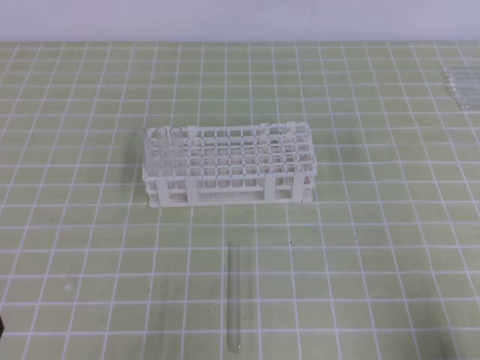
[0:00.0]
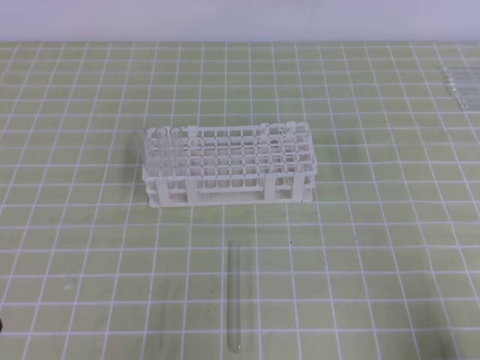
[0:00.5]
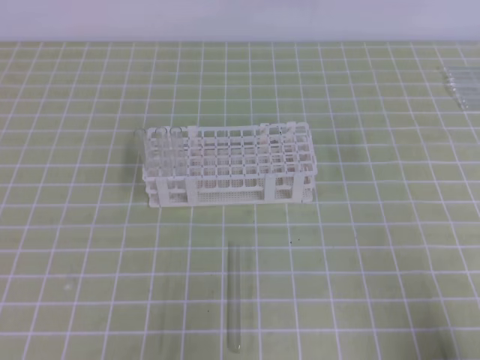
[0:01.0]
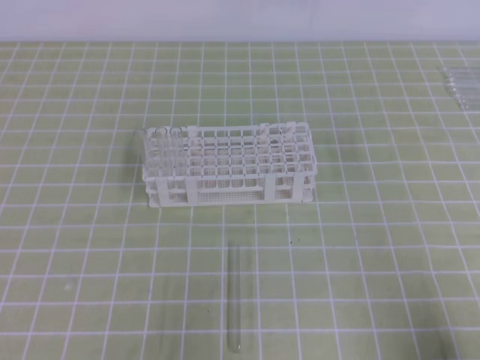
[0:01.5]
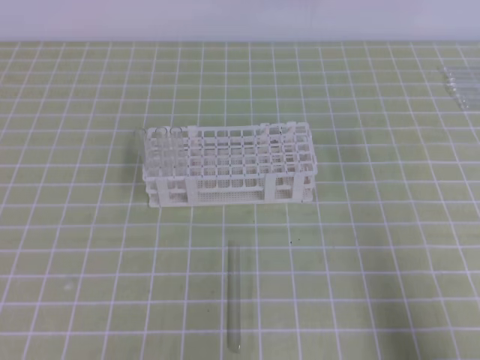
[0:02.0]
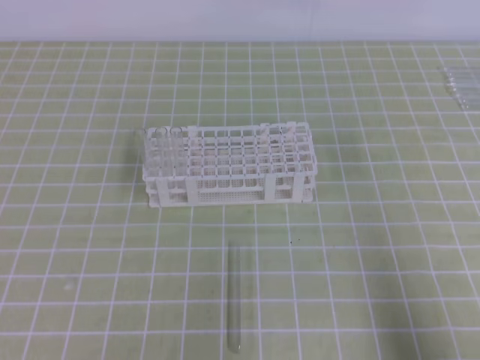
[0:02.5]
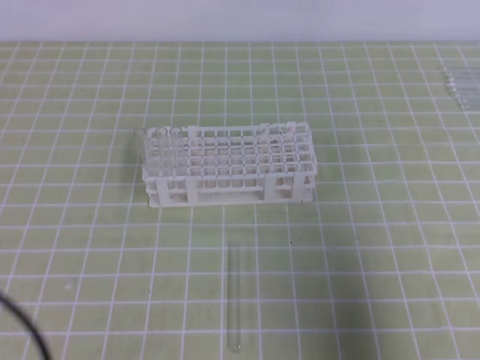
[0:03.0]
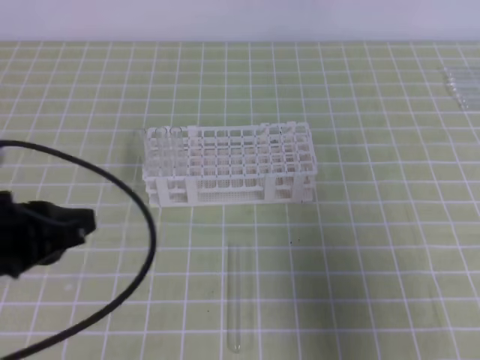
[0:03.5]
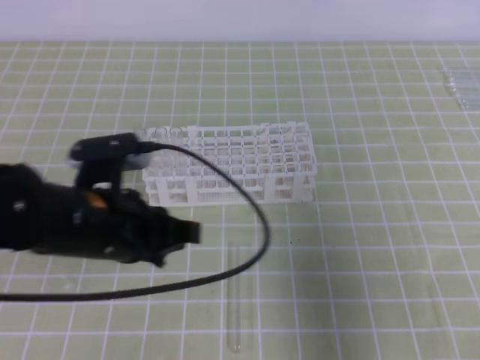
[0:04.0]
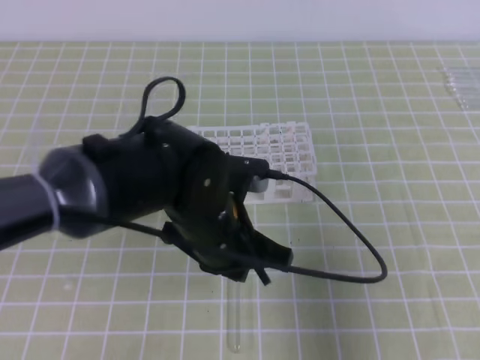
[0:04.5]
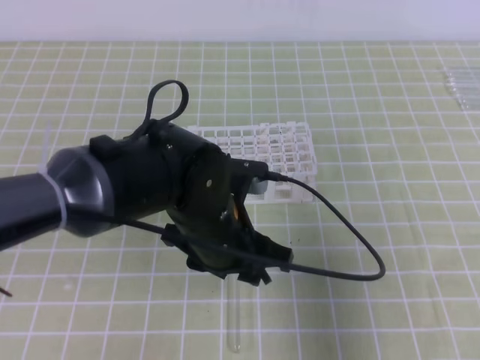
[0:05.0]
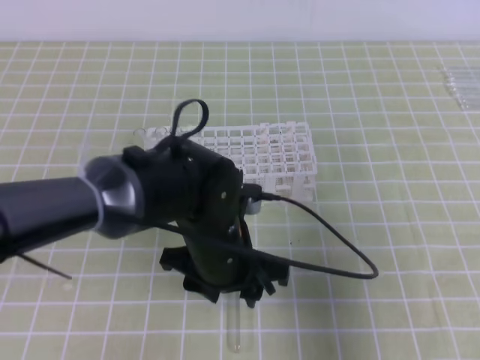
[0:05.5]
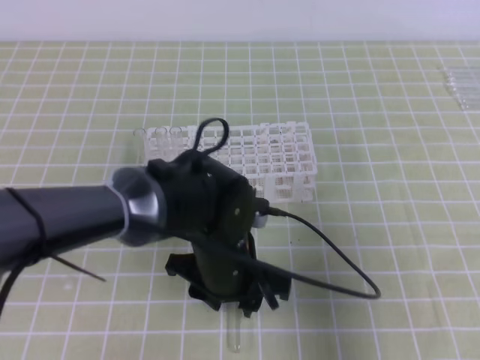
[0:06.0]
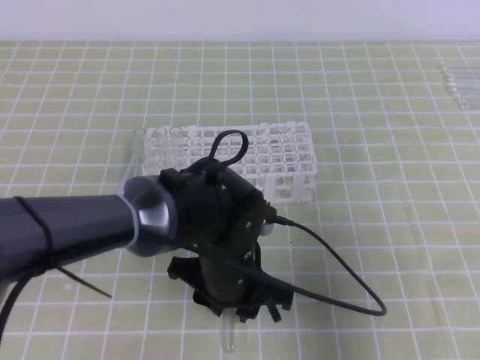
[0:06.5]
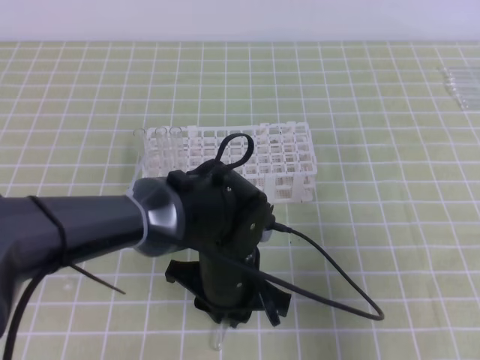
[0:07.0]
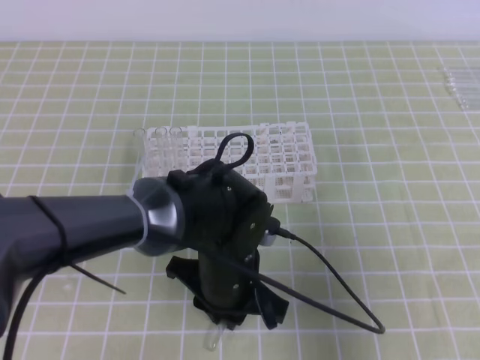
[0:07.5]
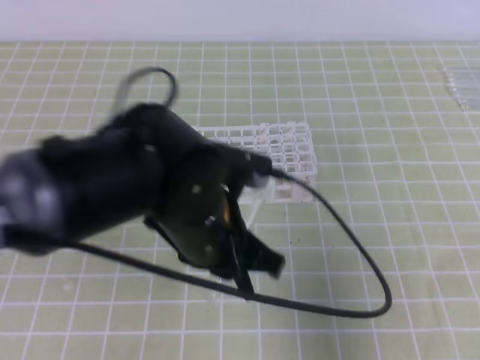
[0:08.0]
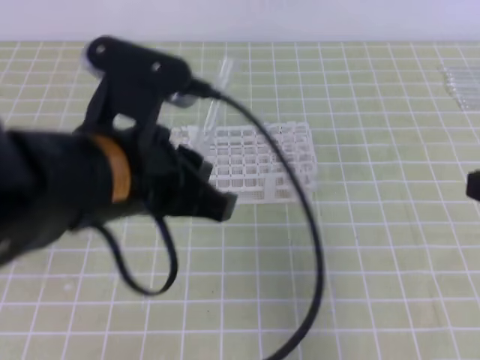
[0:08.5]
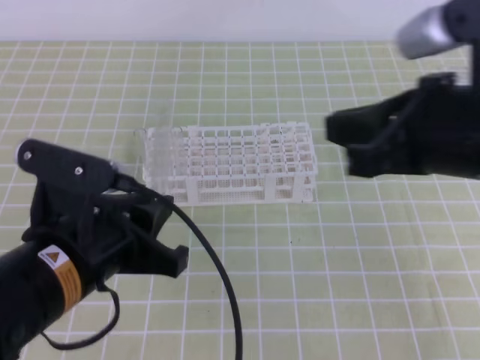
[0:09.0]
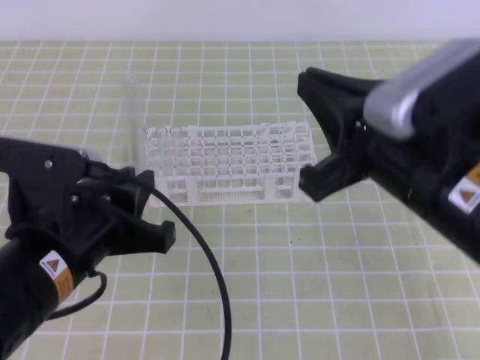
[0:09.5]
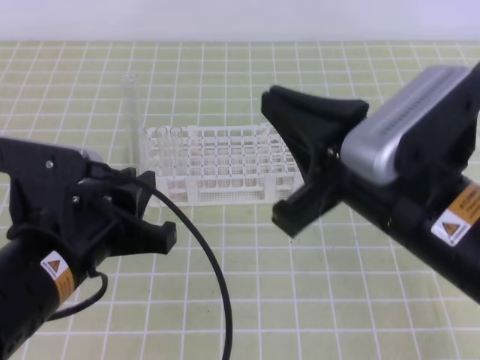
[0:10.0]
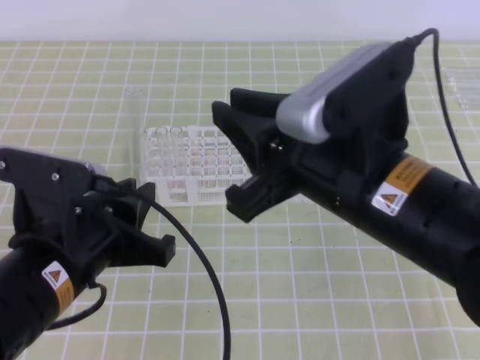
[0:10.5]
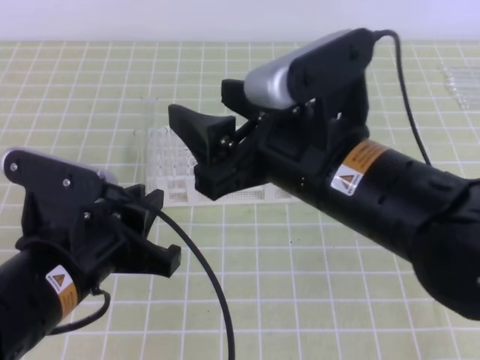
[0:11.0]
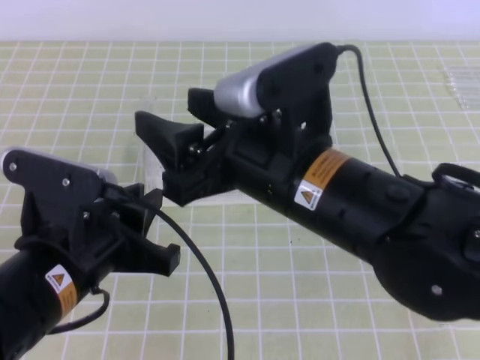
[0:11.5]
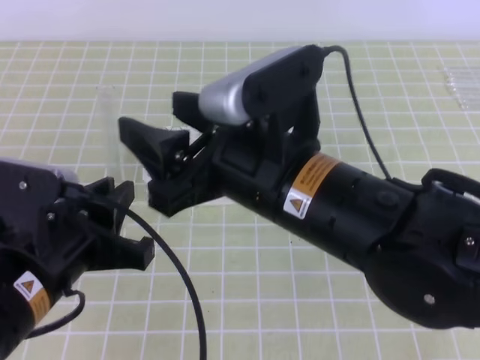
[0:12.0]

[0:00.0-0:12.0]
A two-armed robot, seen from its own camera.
Step, 0.0 to 4.5 s: Pick up the test tube with the left gripper.
Step, 5.0 to 10.5 s: Pass the test tube from the left gripper to the right gripper.
2.0 to 4.0 s: The left gripper shifts some 20 cm forward and to the right, while the right gripper goes approximately 10 cm upward and forward.
4.0 to 6.0 s: The left gripper goes approximately 15 cm to the right and downward, and opens.
6.0 to 8.0 s: The left gripper is displaced upward by some 10 cm, and closes up.
8.0 to 10.0 s: The right gripper goes approximately 15 cm to the left; the left gripper goes about 10 cm to the left and backward.
10.0 to 12.0 s: The right gripper is displaced to the left by some 10 cm, and opens up.

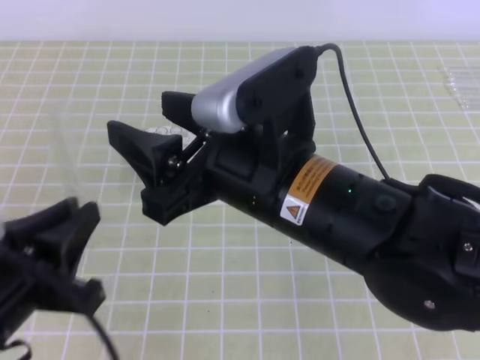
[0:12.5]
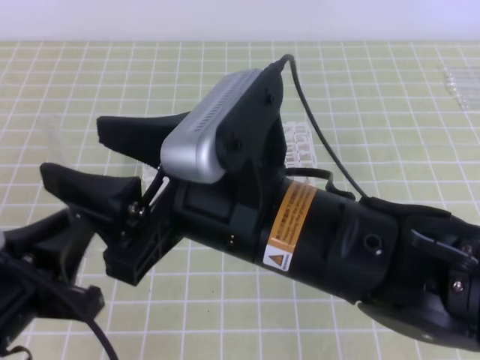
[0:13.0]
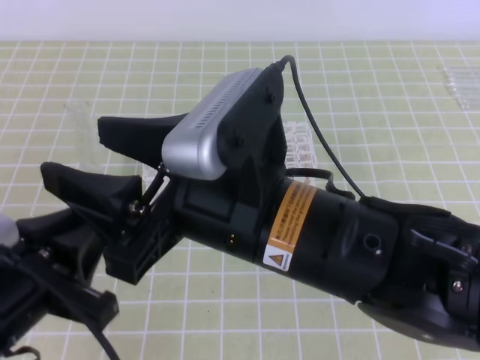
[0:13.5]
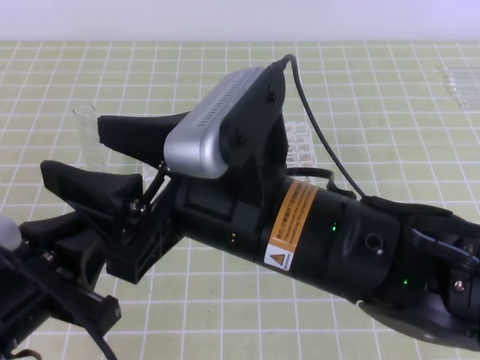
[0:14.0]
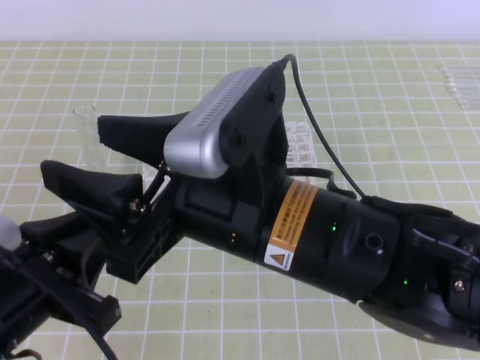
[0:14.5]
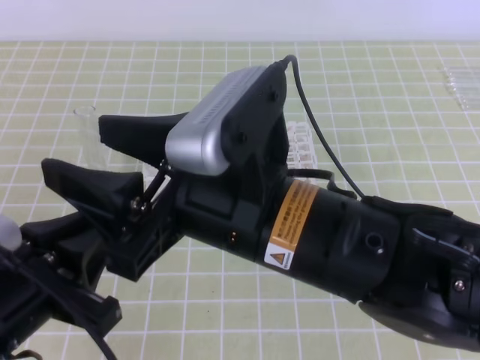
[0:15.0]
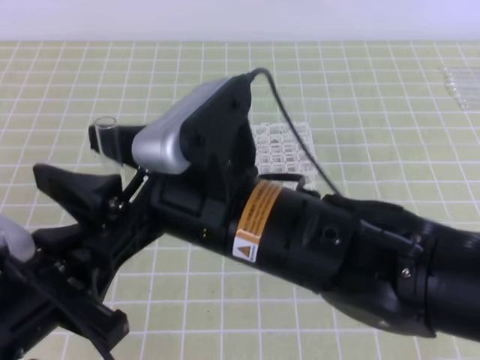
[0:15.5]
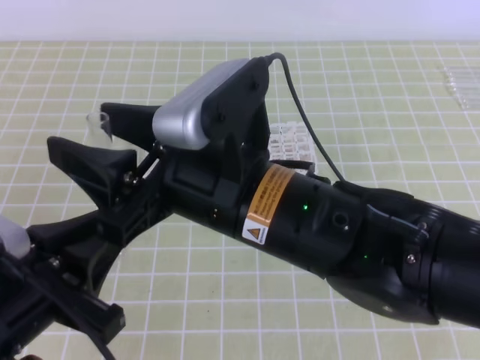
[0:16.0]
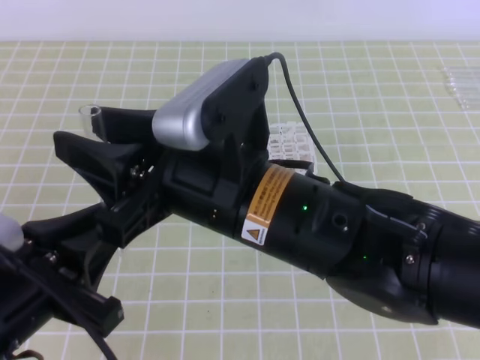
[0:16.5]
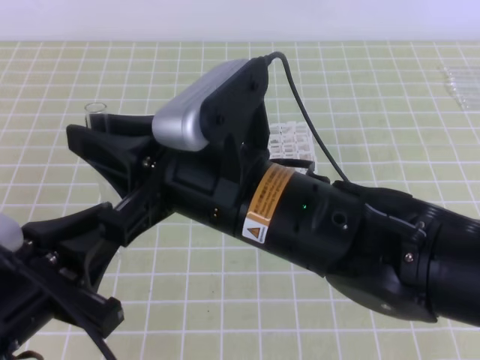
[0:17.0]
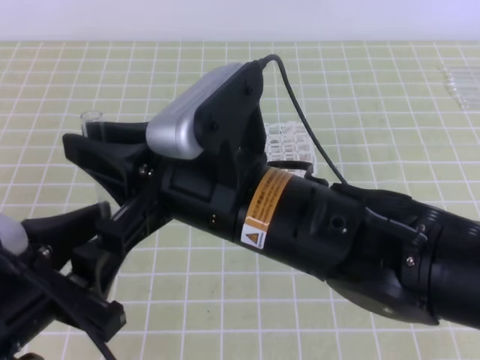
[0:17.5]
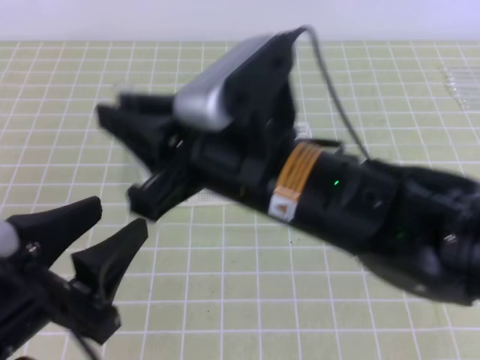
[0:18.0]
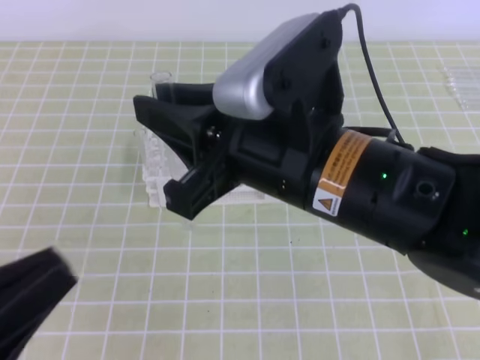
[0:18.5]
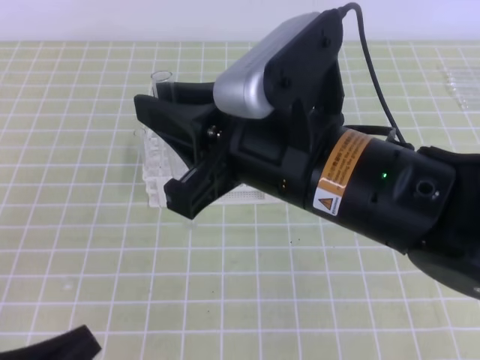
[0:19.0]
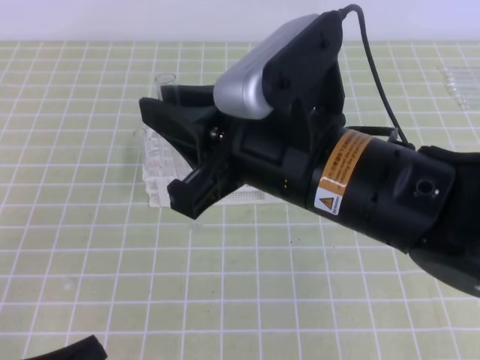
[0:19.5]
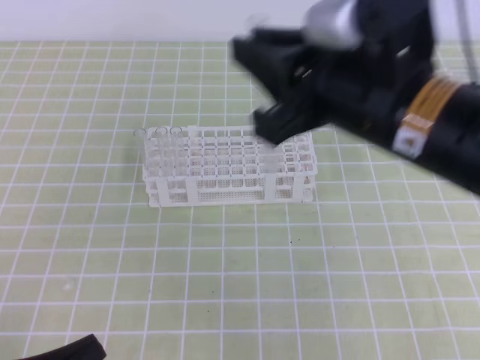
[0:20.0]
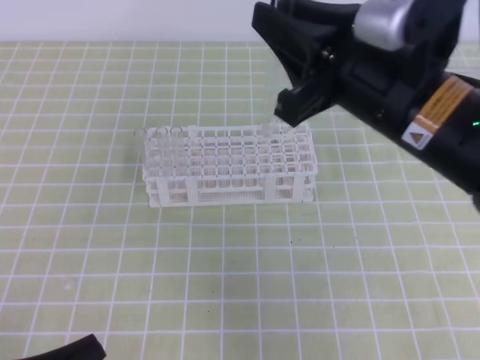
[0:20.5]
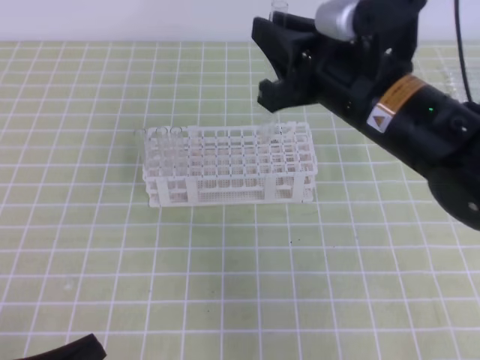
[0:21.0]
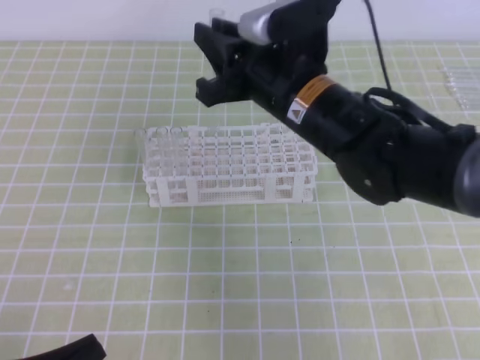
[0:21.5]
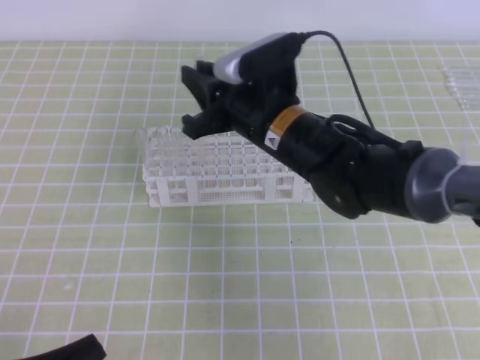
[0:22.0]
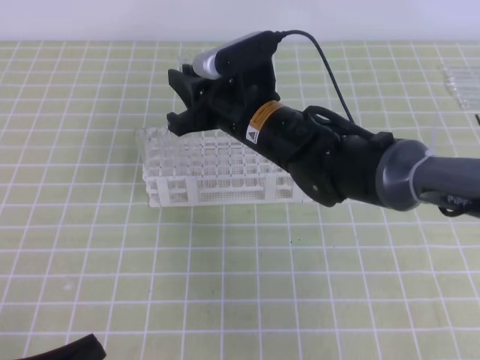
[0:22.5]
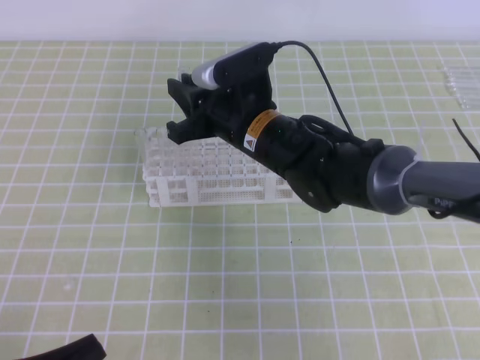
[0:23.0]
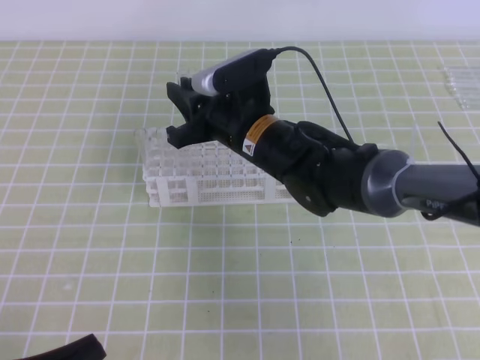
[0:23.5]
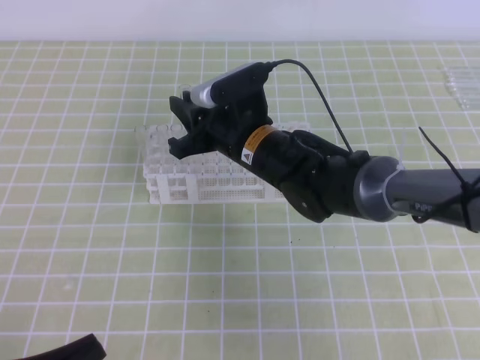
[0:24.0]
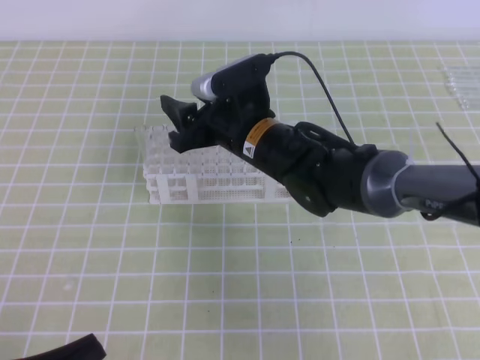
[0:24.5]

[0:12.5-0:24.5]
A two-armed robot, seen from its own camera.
Step, 12.5 to 14.5 s: Place the test tubes on the test tube rack with the right gripper.
14.5 to 16.5 s: The right gripper closes.
16.5 to 18.5 s: The left gripper goes about 5 cm backward, and opens, then closes again; the right gripper changes place by about 5 cm, and closes up.
18.5 to 20.5 s: The right gripper moves to the right and forward, about 10 cm. The left gripper goes roughly 10 cm downward.
20.5 to 22.5 s: The right gripper is displaced forward, to the left and downward by roughly 20 cm.
22.5 to 24.5 s: The right gripper opens.

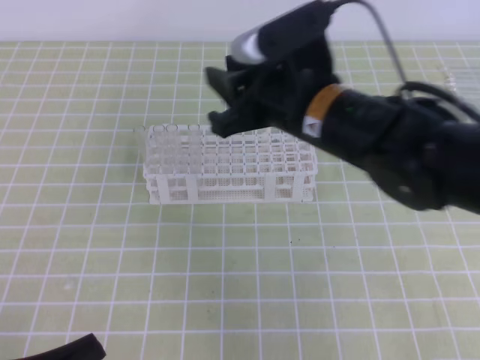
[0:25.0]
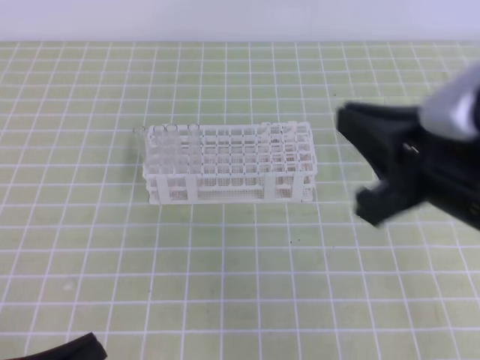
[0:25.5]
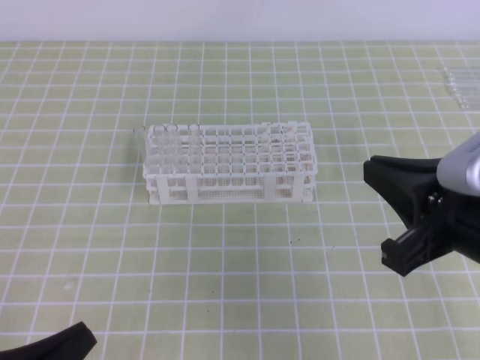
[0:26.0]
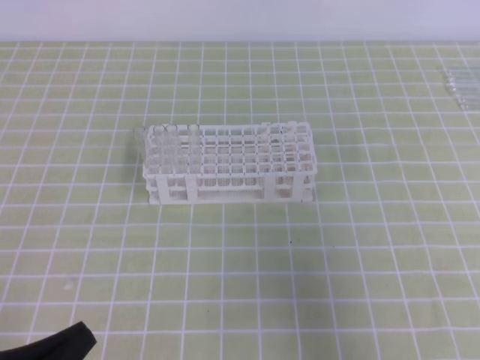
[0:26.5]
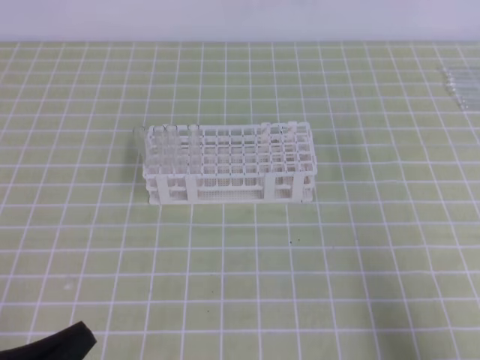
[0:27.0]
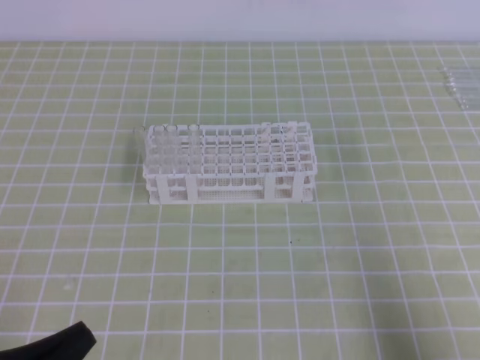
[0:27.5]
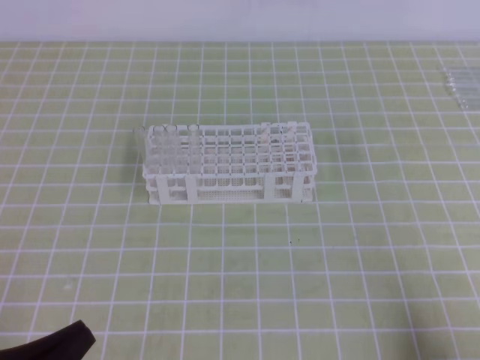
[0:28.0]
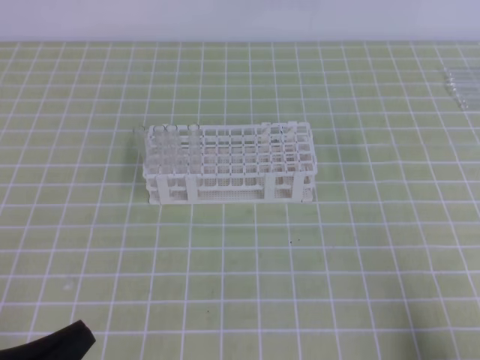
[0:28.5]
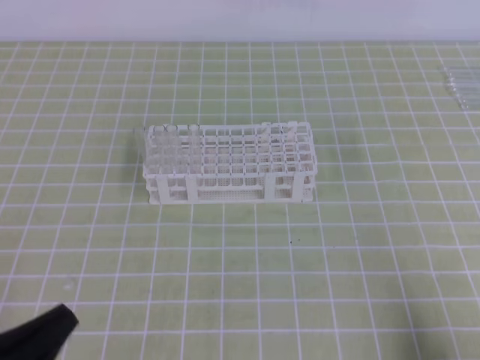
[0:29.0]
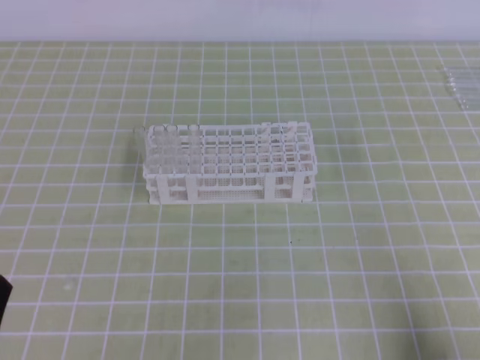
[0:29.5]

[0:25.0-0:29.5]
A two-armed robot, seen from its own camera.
25.0 to 27.0 s: The right gripper travels to the right and backward by about 35 cm, and closes up.
